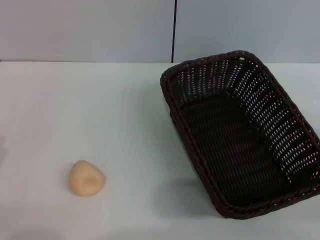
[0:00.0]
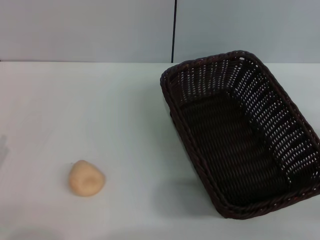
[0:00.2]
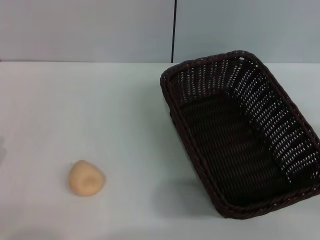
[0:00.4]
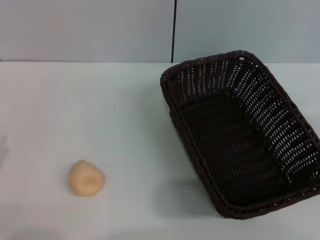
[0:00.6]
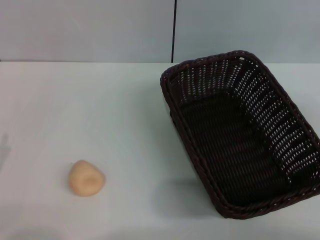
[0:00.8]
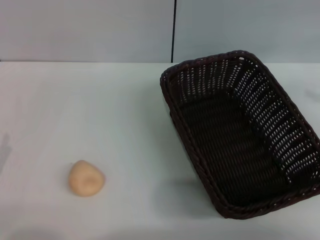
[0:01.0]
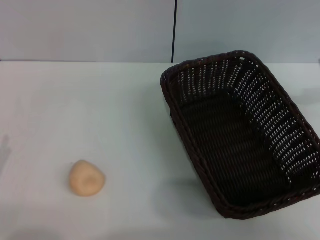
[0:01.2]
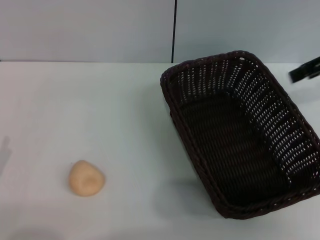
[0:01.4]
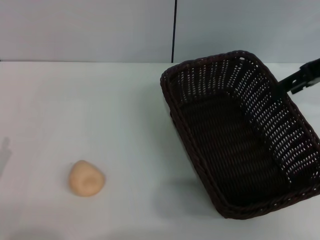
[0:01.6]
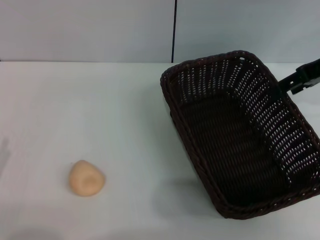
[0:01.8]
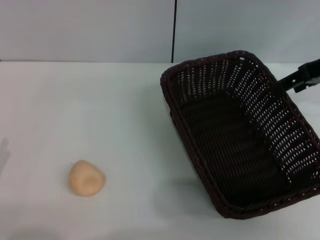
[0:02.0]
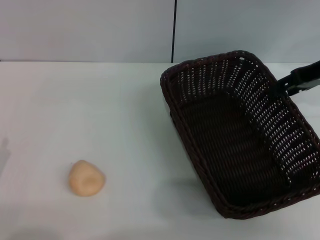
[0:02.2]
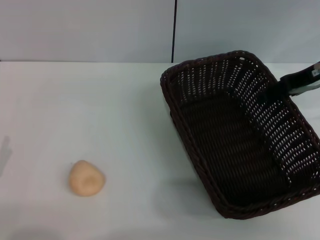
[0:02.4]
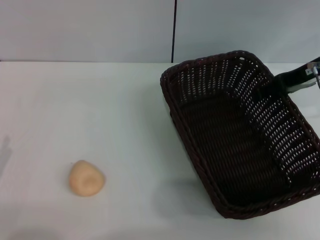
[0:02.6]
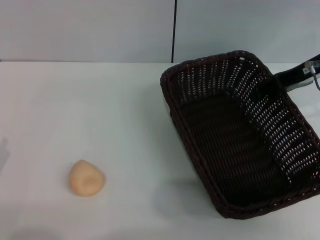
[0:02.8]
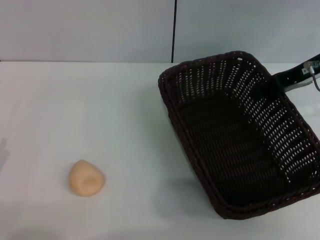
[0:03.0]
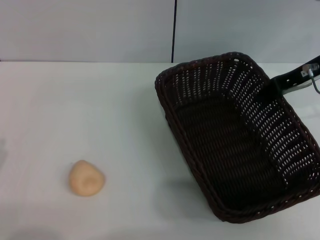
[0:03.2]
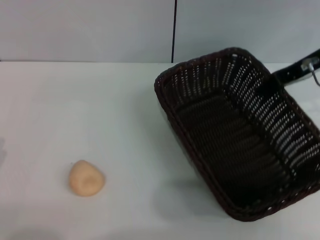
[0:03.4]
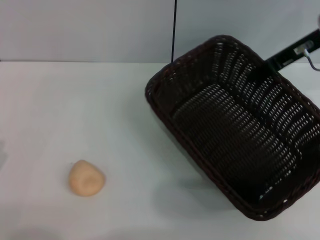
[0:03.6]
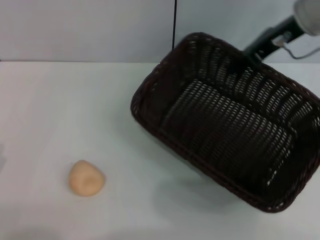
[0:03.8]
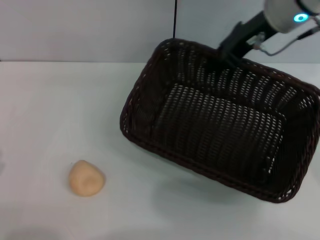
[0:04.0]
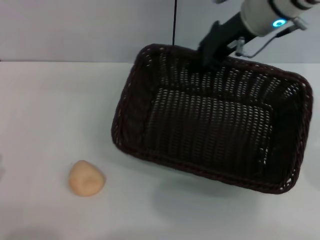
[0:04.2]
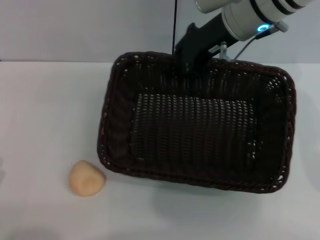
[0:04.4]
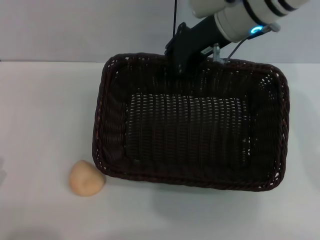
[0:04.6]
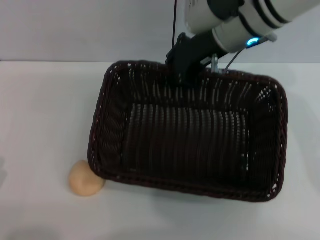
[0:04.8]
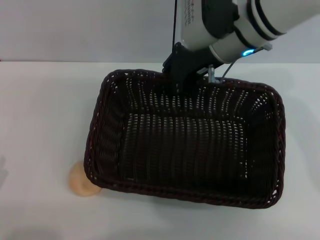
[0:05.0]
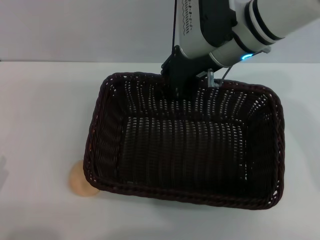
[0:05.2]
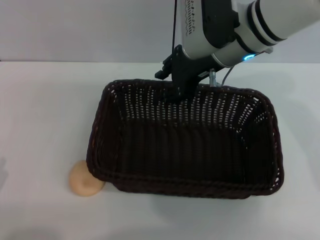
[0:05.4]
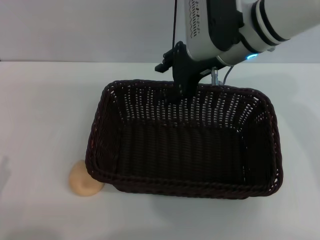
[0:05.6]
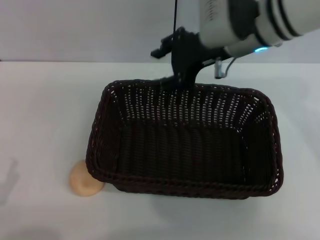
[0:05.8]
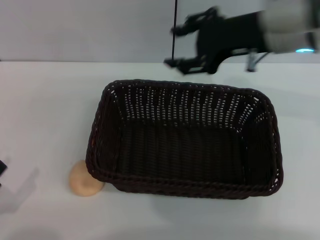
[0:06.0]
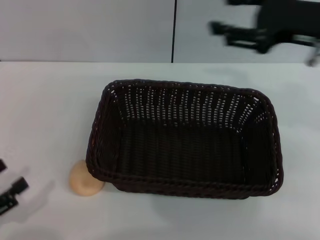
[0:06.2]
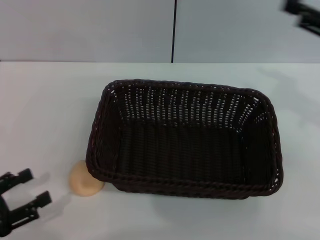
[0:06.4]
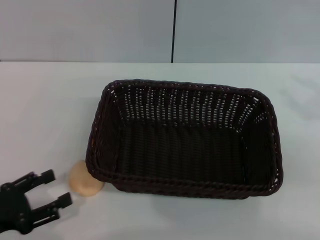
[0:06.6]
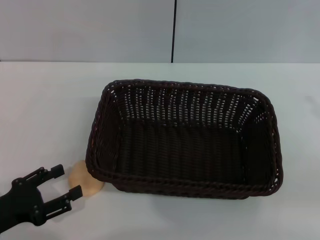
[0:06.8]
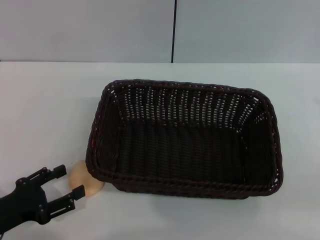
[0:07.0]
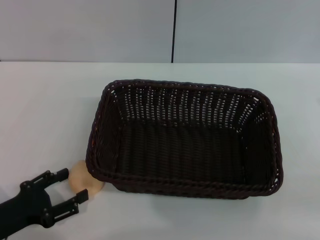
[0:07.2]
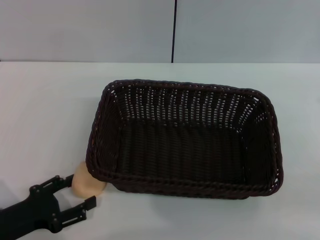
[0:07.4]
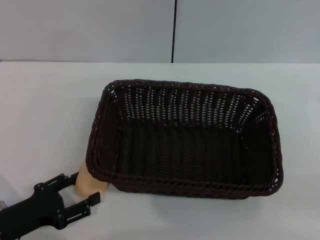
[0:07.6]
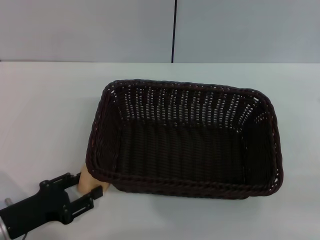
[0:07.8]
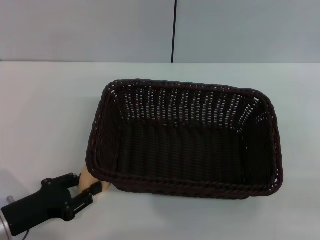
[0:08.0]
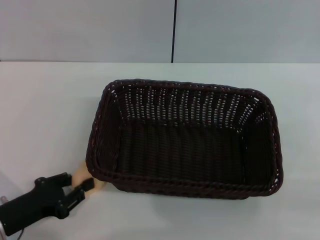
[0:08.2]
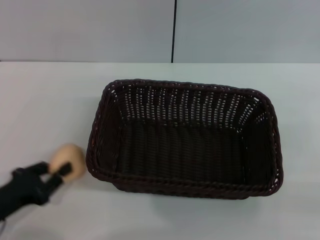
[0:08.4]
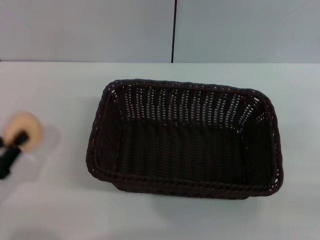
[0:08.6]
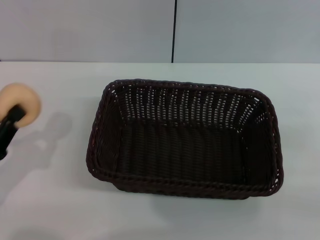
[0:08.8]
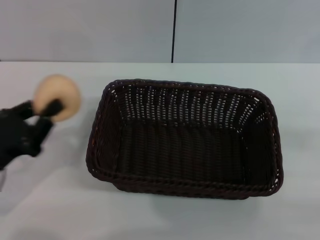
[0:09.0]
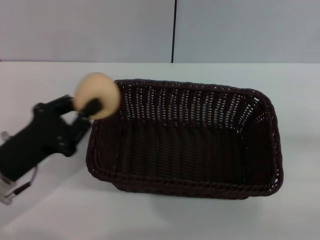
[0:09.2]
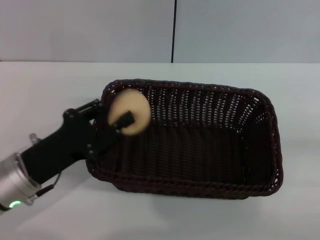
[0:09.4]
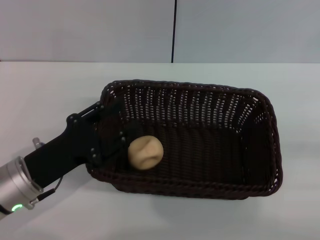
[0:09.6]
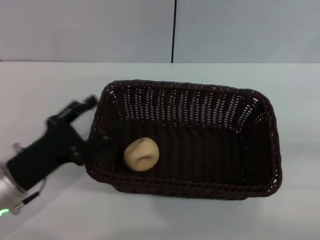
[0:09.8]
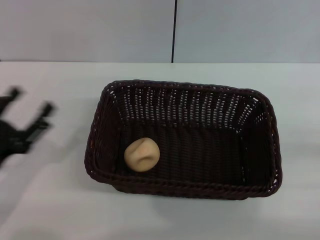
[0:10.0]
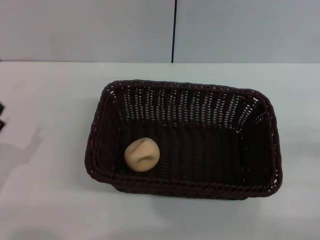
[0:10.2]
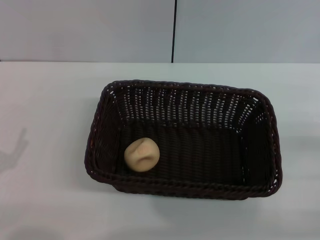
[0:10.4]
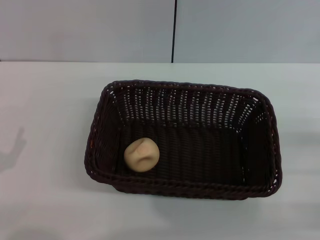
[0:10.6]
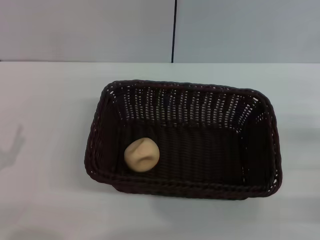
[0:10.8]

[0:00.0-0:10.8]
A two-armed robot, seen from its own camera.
Step, 0:00.0 to 0:06.0: Move the basket to the center of view with the right gripper.
Step, 0:06.2 to 0:08.8: Pick up the egg yolk pastry with the left gripper.
Step, 0:09.0 to 0:09.8: Place the egg yolk pastry into the basket with the left gripper.
0:00.0 to 0:01.6: The right gripper is displaced forward, upward and to the left by approximately 30 cm.
0:01.6 to 0:03.0: The right gripper moves some 5 cm, and closes up.
0:03.0 to 0:04.6: The right gripper is displaced to the left by some 15 cm, and closes up.
0:04.6 to 0:06.2: The right gripper is displaced to the right and backward by roughly 15 cm, and opens its fingers.
0:06.2 to 0:07.8: The left gripper goes about 10 cm to the right and forward. Meanwhile the right gripper travels to the right, backward and downward by approximately 20 cm.
0:07.8 to 0:09.2: The left gripper moves upward, roughly 5 cm, and closes up.
0:09.2 to 0:10.8: The left gripper shifts approximately 10 cm backward and to the left, and opens up. Meanwhile the right gripper shifts by approximately 5 cm.

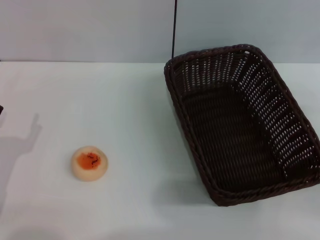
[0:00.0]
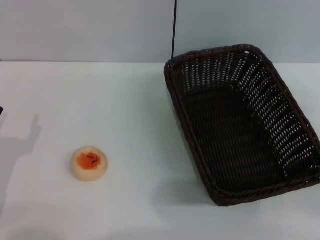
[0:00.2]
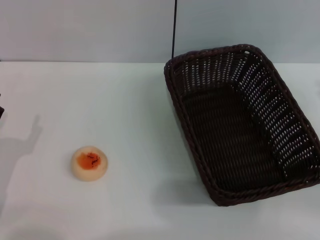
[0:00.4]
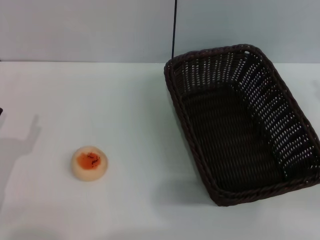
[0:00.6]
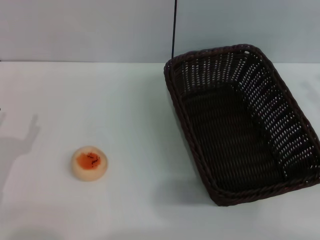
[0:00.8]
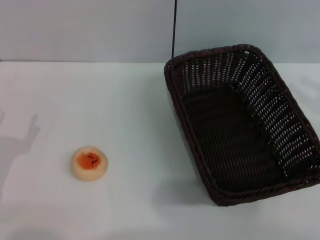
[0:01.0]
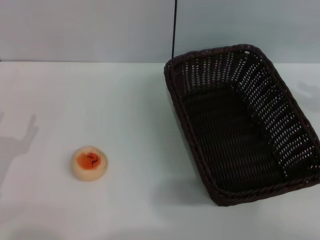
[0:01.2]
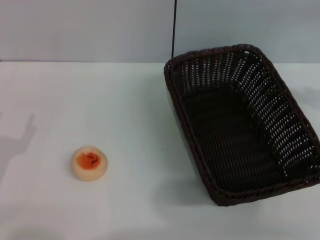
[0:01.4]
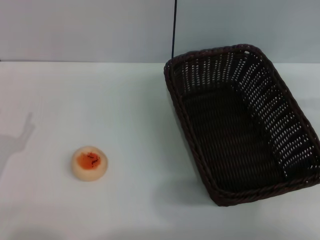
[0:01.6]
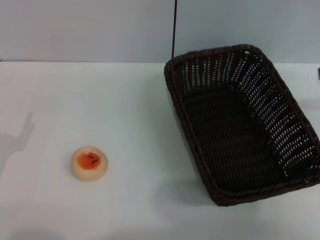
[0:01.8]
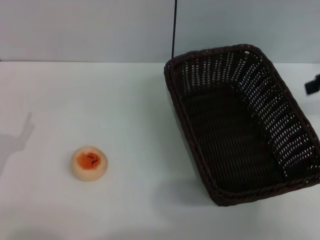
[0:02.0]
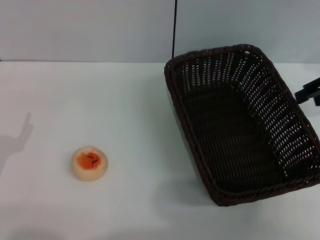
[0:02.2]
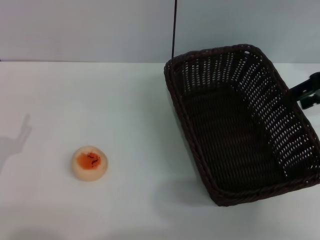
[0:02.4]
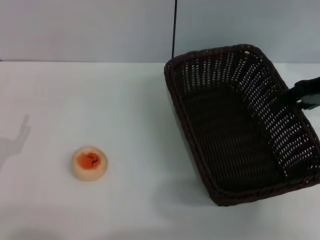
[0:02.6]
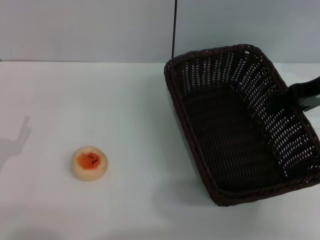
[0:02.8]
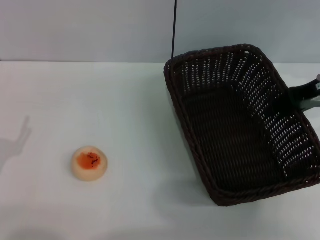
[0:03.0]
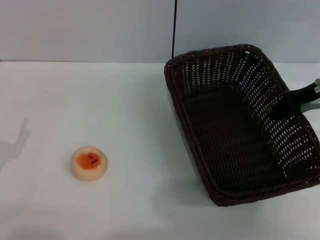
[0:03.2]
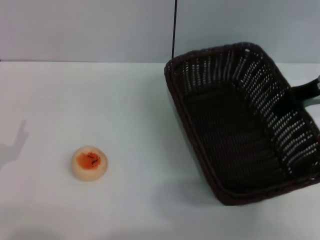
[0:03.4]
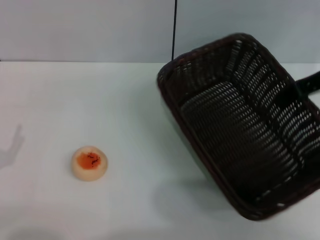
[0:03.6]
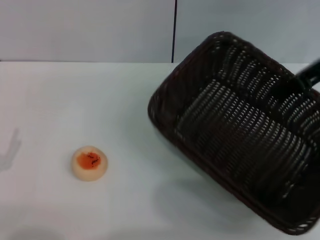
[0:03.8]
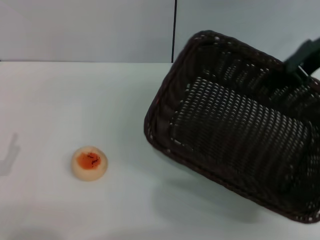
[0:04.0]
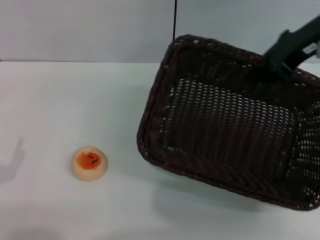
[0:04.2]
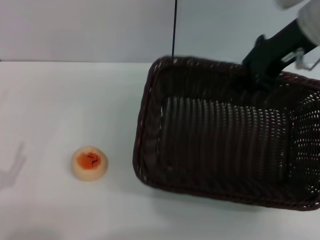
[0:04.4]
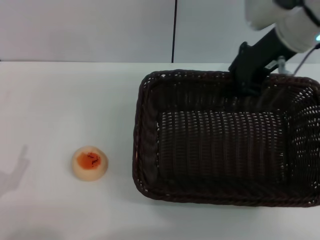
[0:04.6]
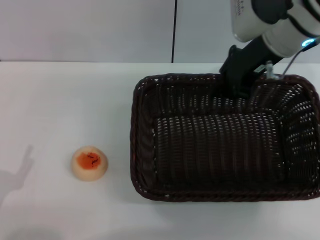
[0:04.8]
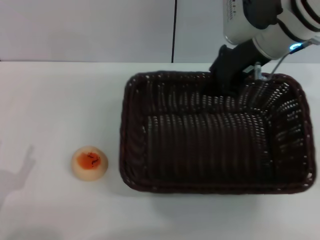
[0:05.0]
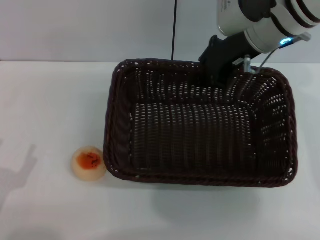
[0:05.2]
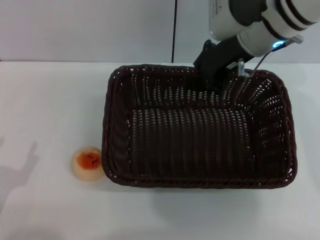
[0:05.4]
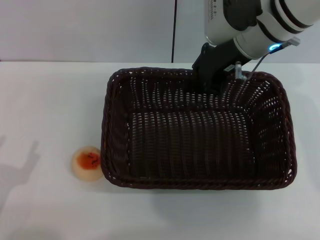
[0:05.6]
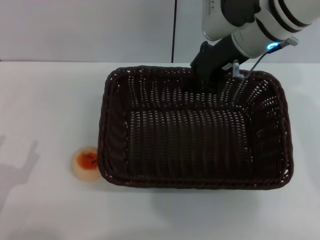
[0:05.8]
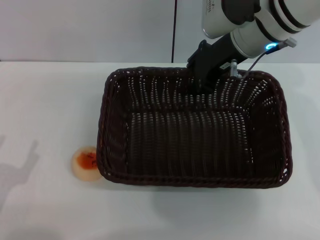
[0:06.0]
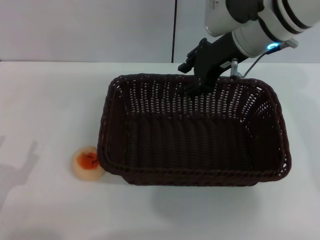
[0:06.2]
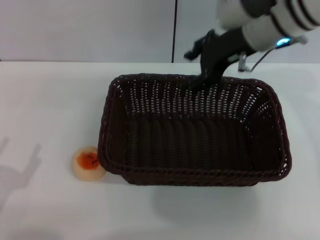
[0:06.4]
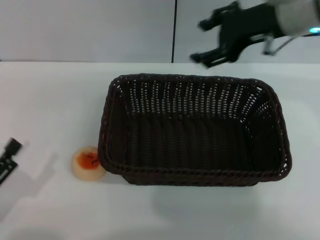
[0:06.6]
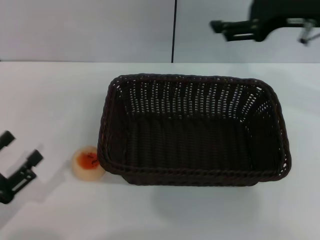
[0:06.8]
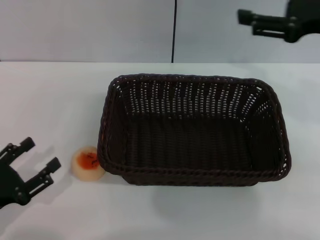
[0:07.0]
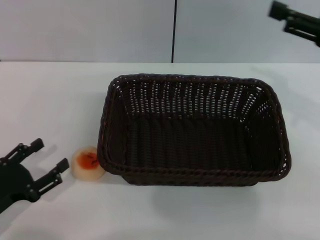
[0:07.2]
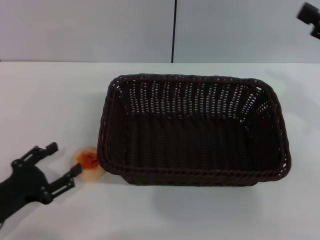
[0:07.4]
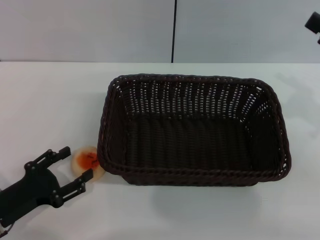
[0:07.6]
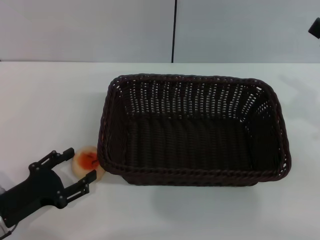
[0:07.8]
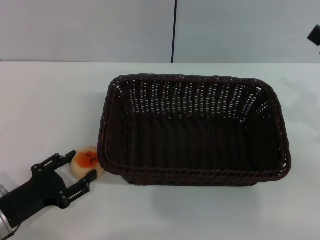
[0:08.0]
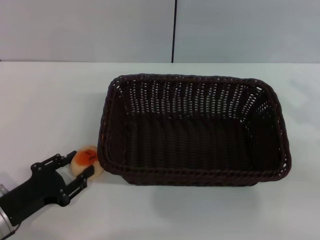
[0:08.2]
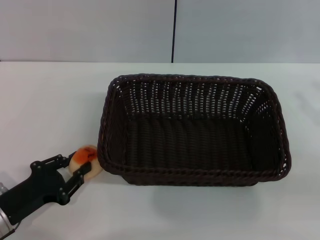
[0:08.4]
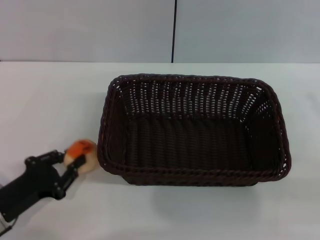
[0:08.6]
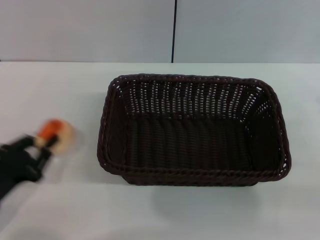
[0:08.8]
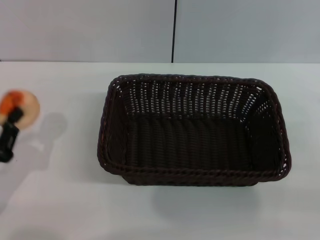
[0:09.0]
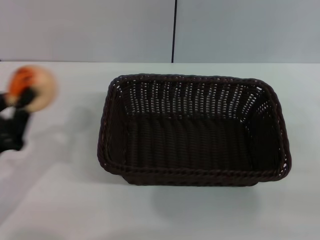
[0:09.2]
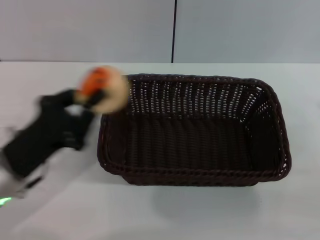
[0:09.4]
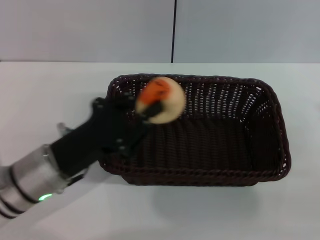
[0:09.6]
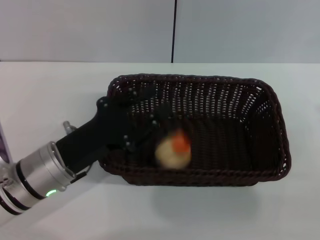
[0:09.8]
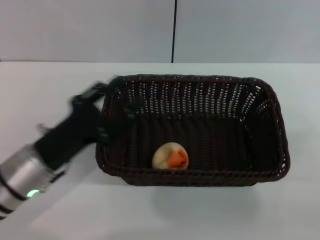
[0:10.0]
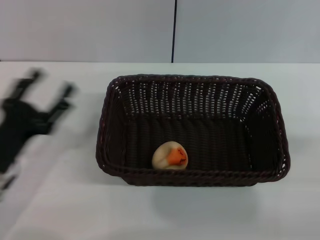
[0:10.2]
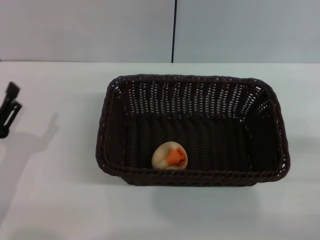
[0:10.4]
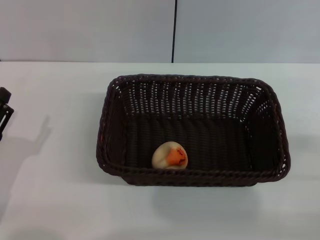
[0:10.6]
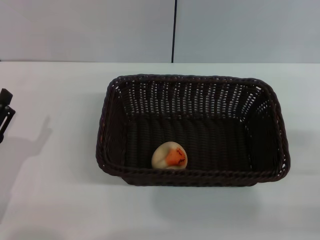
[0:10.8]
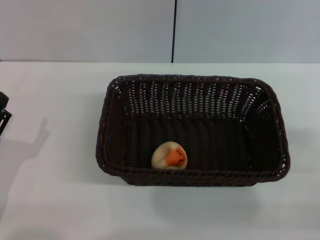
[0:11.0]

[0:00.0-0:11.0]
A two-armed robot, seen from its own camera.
Step, 0:00.0 to 0:06.6: Move the basket to the center of view with the right gripper.
Step, 0:06.8 to 0:08.8: Pick up the egg yolk pastry with the left gripper.
Step, 0:09.0 to 0:10.0: Place the egg yolk pastry into the basket with the left gripper.
0:00.0 to 0:01.6: The right gripper is displaced upward and forward by some 20 cm.
0:01.6 to 0:03.2: The right gripper heads to the left, downward and forward, covering about 15 cm.
0:03.2 to 0:04.8: The right gripper goes some 10 cm to the left, and closes its fingers, while the left gripper moves backward, roughly 5 cm.
0:04.8 to 0:06.2: The right gripper opens its fingers.
0:06.2 to 0:07.8: The right gripper travels to the right and backward by some 25 cm, and opens up, while the left gripper is displaced forward by some 5 cm.
0:07.8 to 0:09.4: The right gripper goes approximately 10 cm backward and downward; the left gripper moves upward and to the right, roughly 10 cm, and closes its fingers.
0:09.4 to 0:11.0: The left gripper heads to the left and backward, covering some 10 cm, and opens its fingers.
